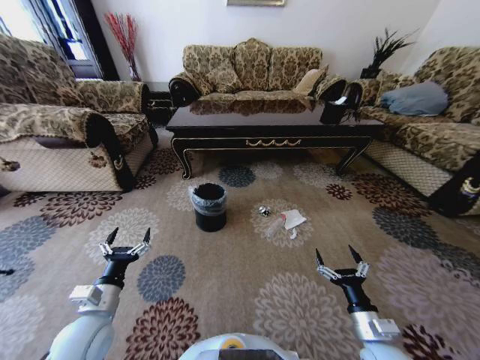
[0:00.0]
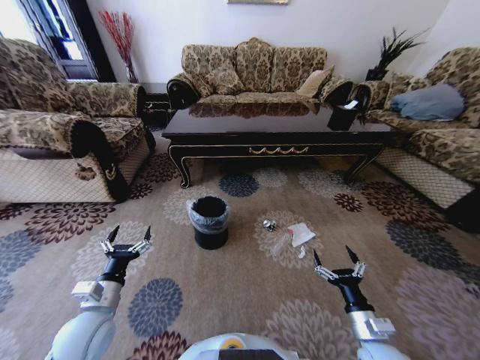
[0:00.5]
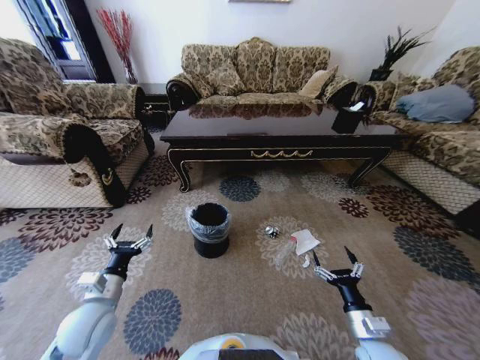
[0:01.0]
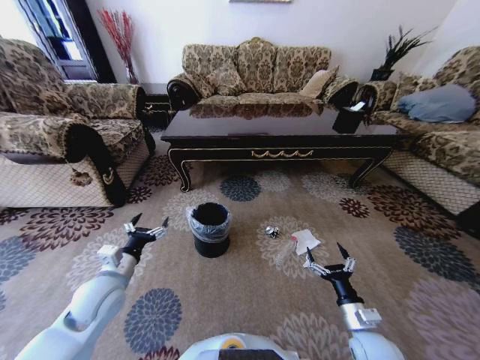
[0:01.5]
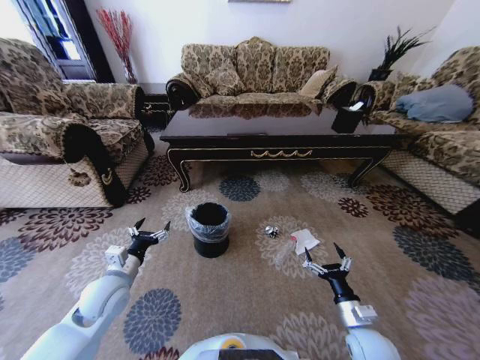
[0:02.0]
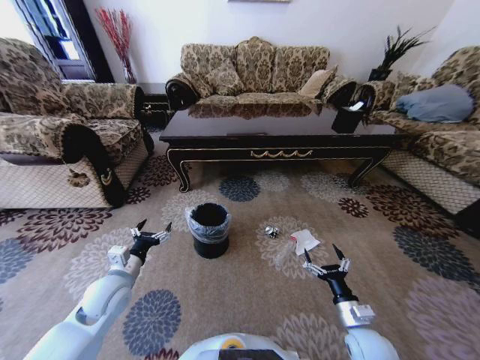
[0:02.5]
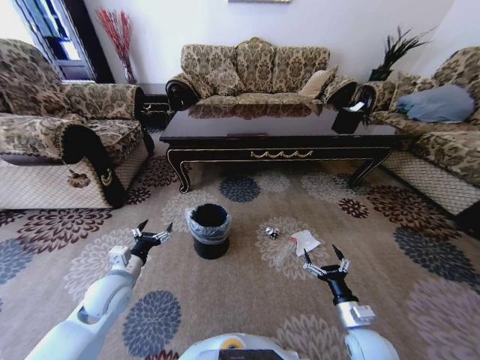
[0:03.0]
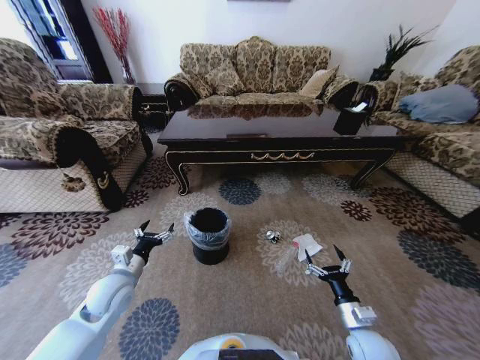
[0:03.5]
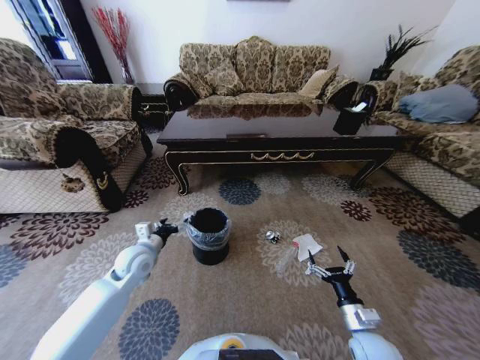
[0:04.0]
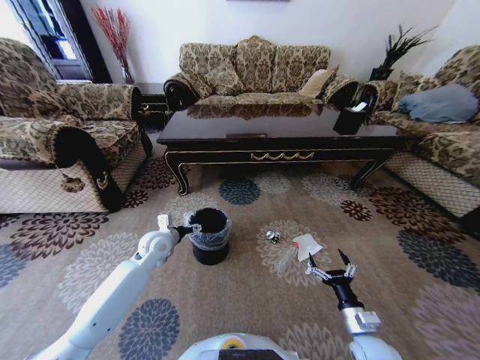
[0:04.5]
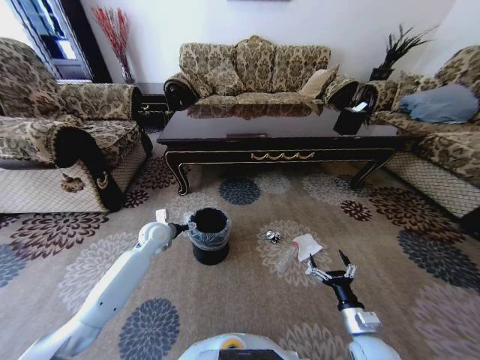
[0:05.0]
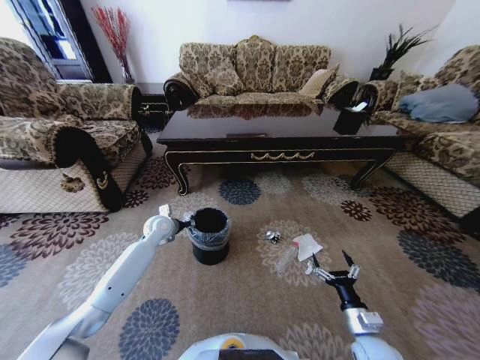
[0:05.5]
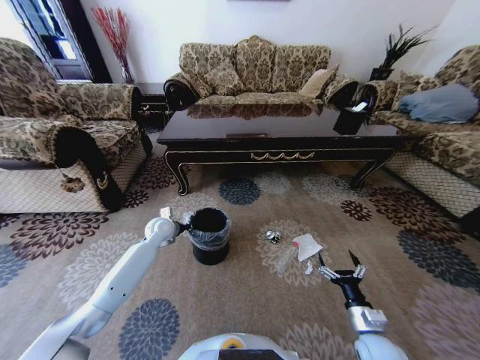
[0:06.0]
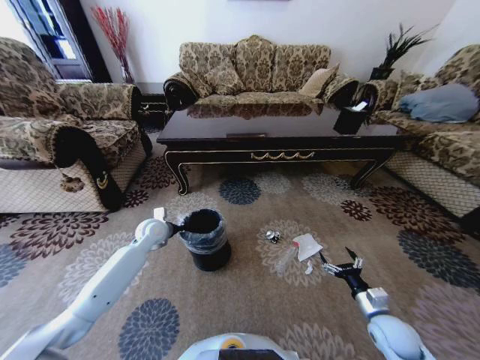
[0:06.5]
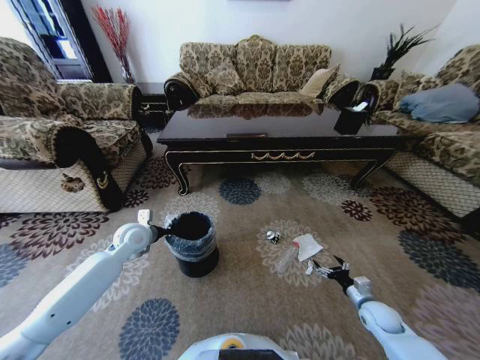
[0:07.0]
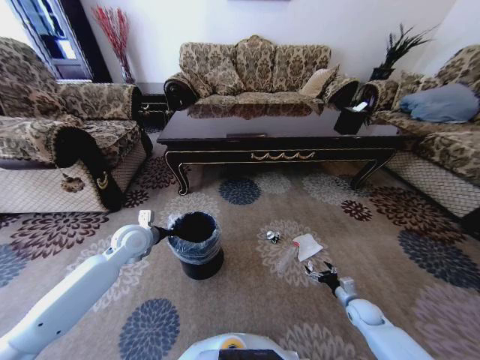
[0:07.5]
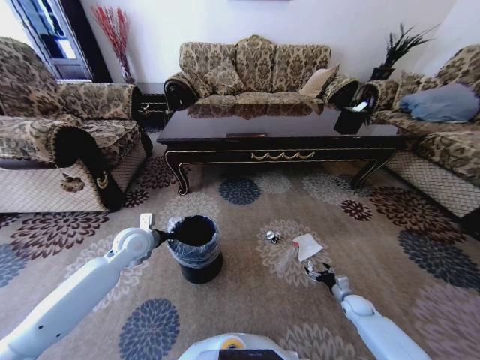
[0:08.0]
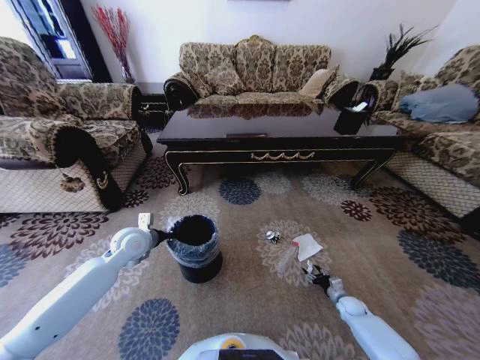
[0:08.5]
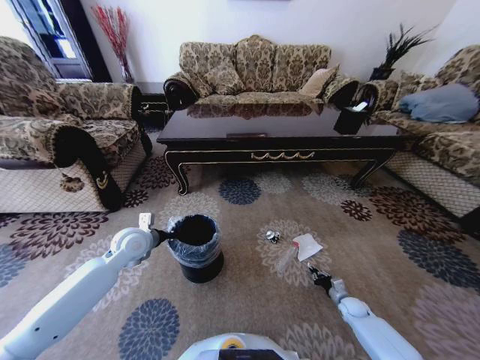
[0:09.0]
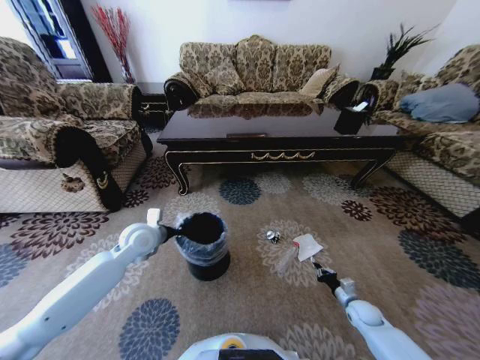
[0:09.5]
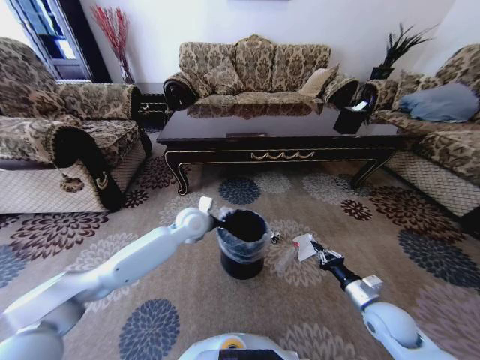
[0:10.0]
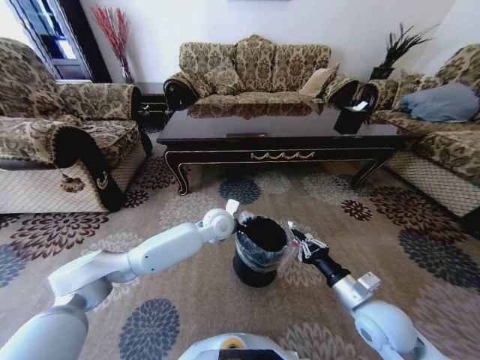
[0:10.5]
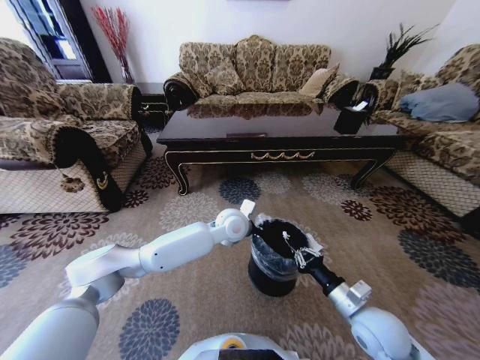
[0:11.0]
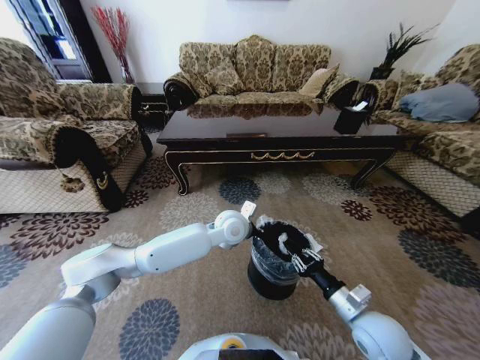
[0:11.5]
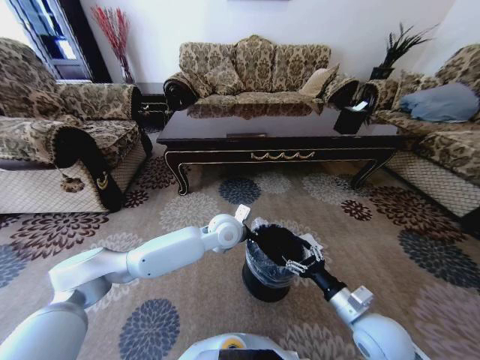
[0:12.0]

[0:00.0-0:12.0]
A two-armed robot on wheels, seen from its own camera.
Task of the whole recording: Move to the front of the table and pick up the trash from the floor, then place it into the trash bin.
0.0 to 2.0 s: The left gripper goes about 10 cm forward.
2.0 to 4.0 s: The left gripper goes about 10 cm forward.
4.0 to 6.0 s: The left gripper shifts about 15 cm forward, and closes its fingers.
6.0 to 8.0 s: The left gripper heads backward and upward, covering roughly 10 cm; the right gripper moves downward, forward and to the right, roughly 25 cm.
8.0 to 10.0 s: The right gripper shifts some 20 cm upward and to the left, and closes up; the left gripper shifts roughly 15 cm to the right.
10.0 to 12.0 s: The right gripper goes about 10 cm to the left and upward, and opens. The left gripper is displaced to the right by about 10 cm.

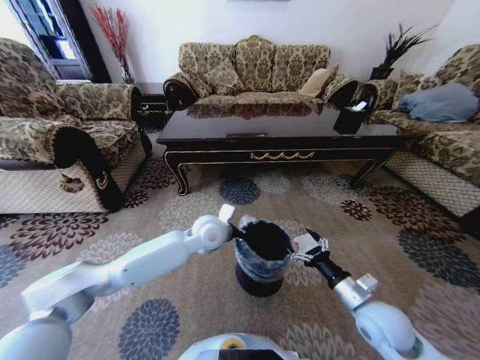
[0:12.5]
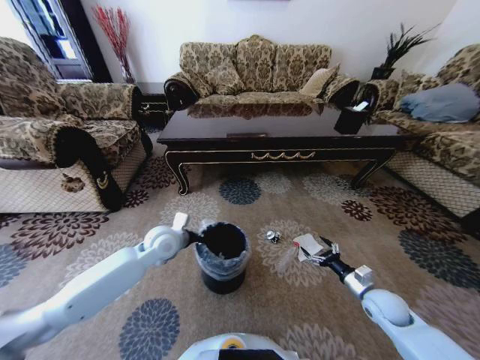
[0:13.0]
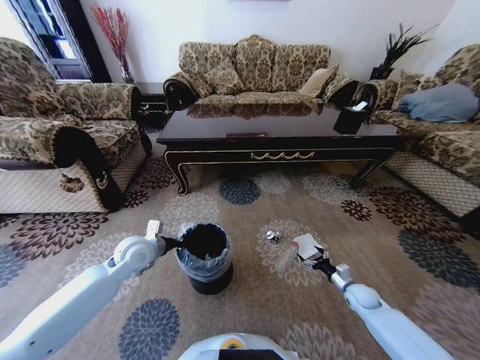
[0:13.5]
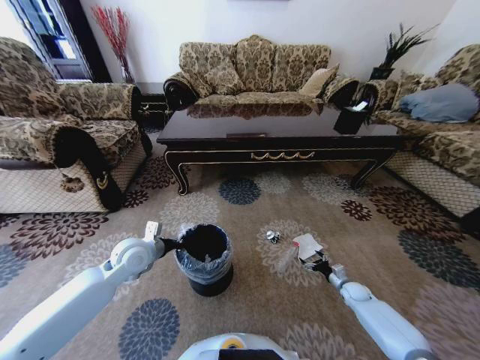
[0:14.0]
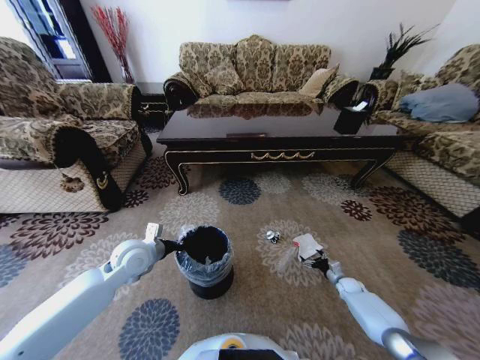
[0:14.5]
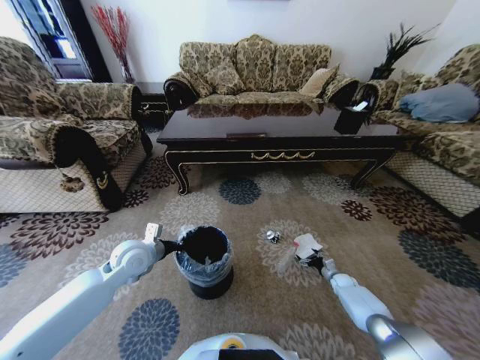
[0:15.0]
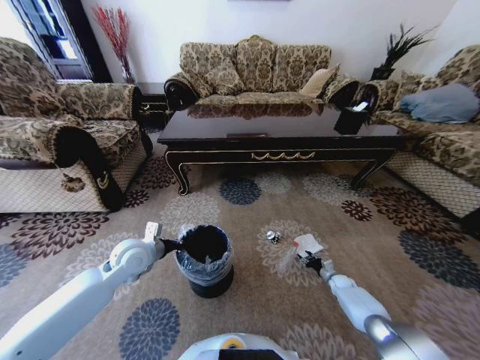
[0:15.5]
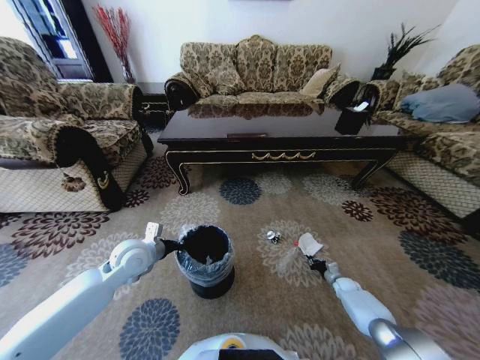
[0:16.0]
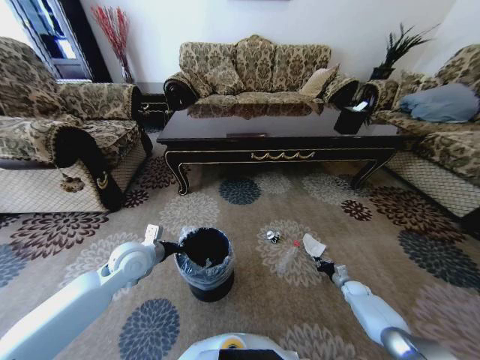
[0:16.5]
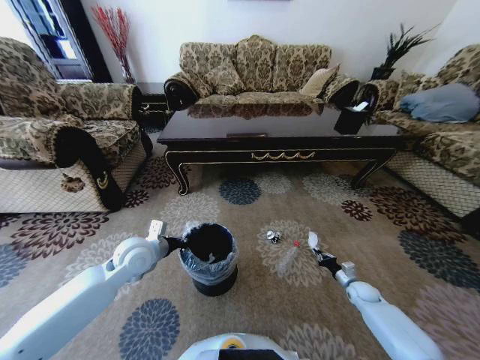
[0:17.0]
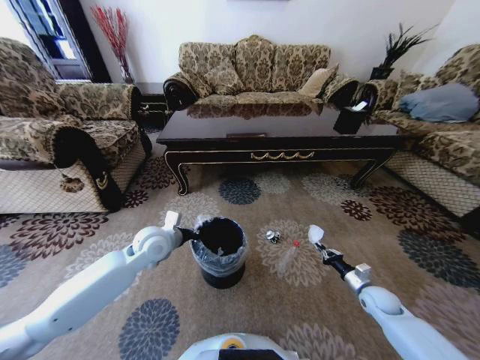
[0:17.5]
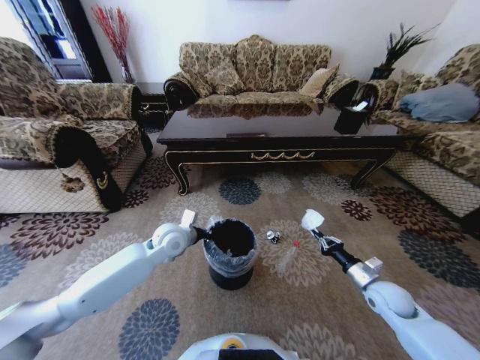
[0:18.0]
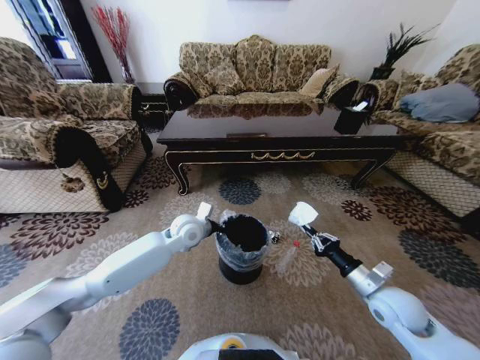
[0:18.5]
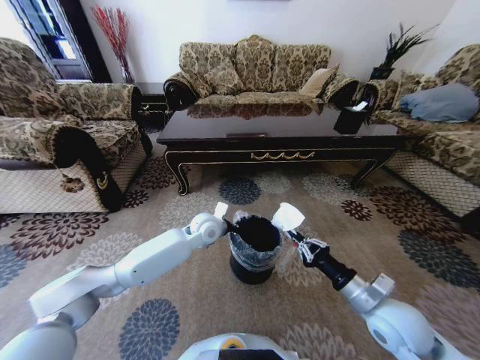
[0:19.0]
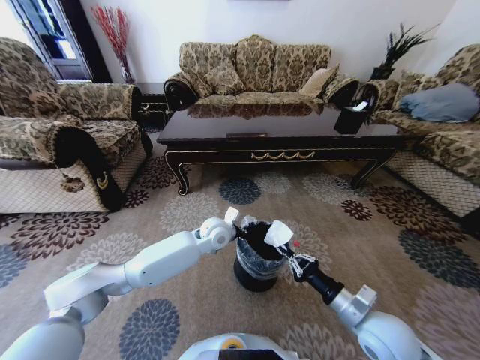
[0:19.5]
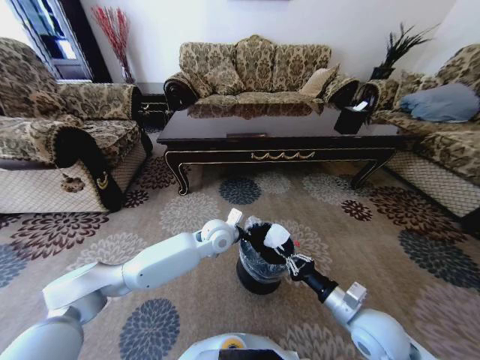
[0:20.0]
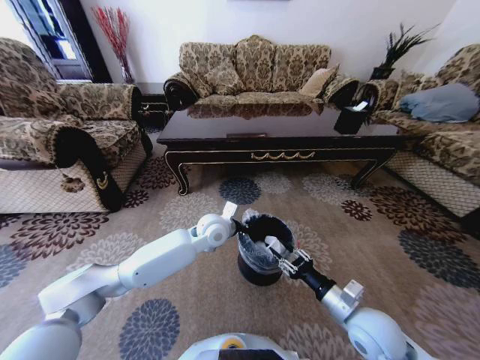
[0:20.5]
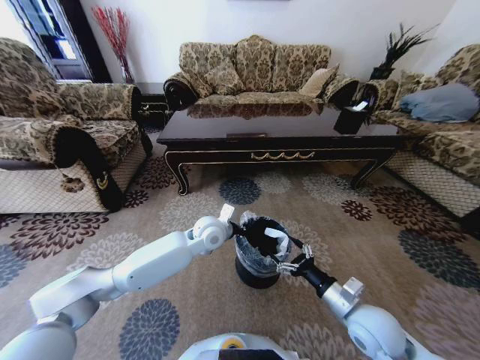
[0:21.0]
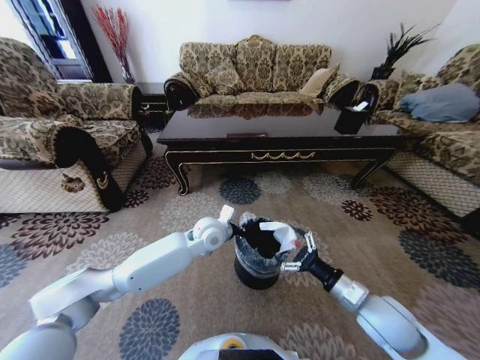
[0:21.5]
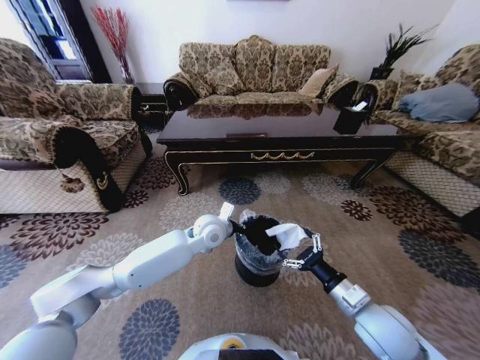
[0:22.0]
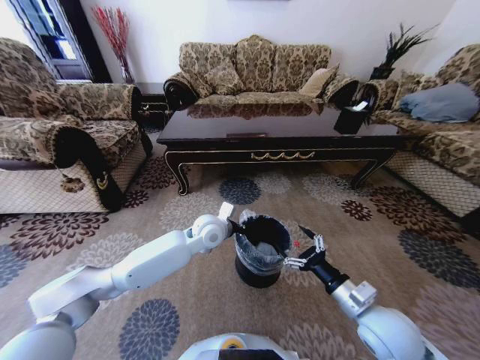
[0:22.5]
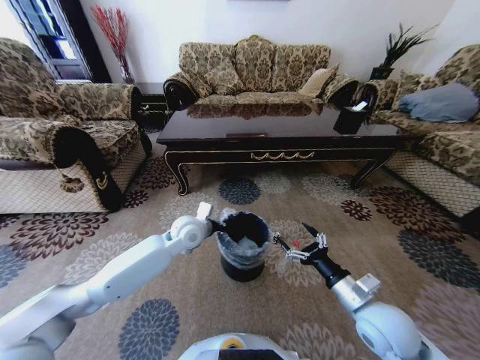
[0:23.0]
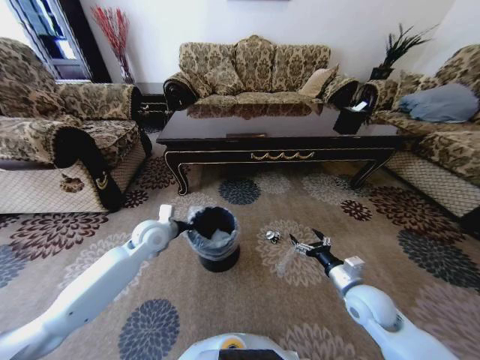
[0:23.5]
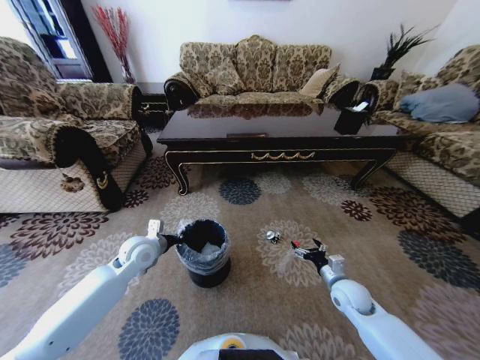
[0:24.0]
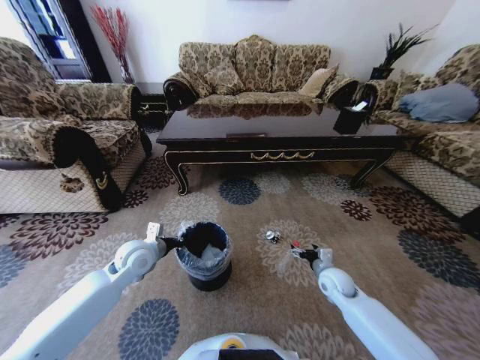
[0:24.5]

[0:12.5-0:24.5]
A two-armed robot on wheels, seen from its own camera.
Task of the whole recording: Move to the front of the table and pick up the trash from the floor, then place it into the trash bin.
12.5 to 14.5 s: The right gripper travels downward, to the right and forward by approximately 35 cm. Meanwhile the left gripper is displaced to the left by about 20 cm.
14.5 to 16.5 s: The right gripper closes its fingers.
16.5 to 18.5 s: The left gripper goes roughly 15 cm to the right and forward. Meanwhile the right gripper travels upward, to the left and backward by some 30 cm.
18.5 to 20.5 s: The left gripper goes some 10 cm to the right, while the right gripper travels to the left by roughly 10 cm, and opens its fingers.
20.5 to 22.5 s: The right gripper opens.
22.5 to 24.5 s: The left gripper moves to the left, roughly 20 cm; the right gripper goes approximately 20 cm forward and downward.

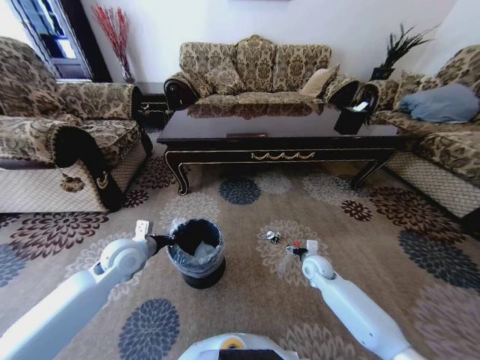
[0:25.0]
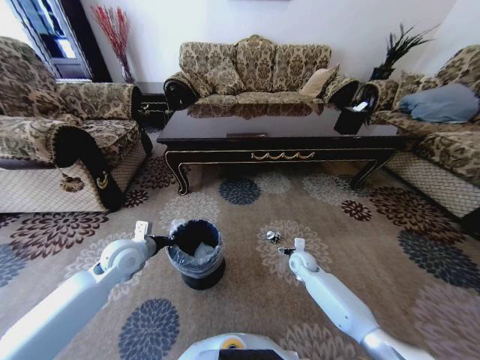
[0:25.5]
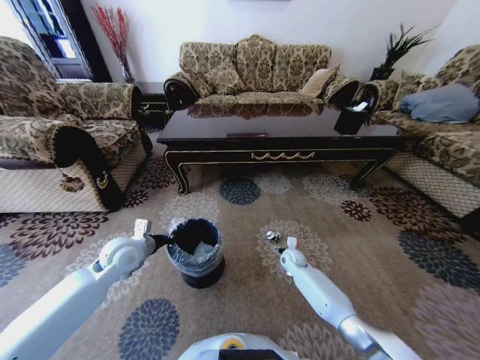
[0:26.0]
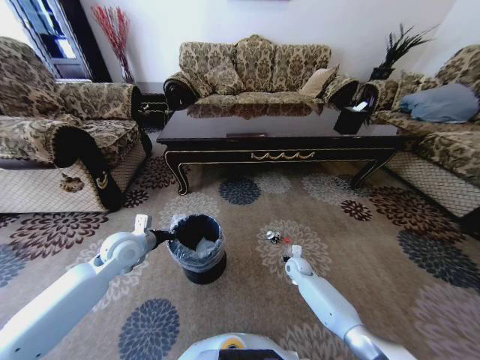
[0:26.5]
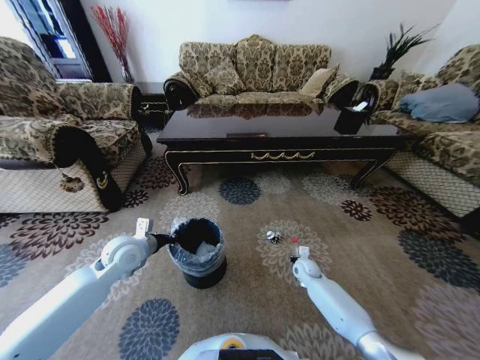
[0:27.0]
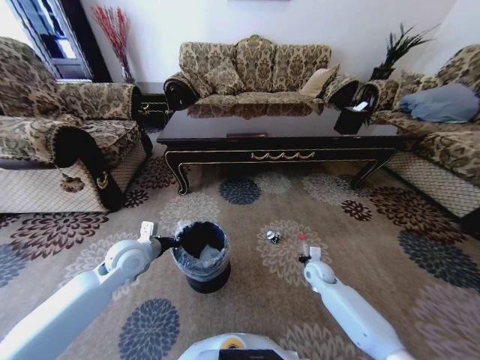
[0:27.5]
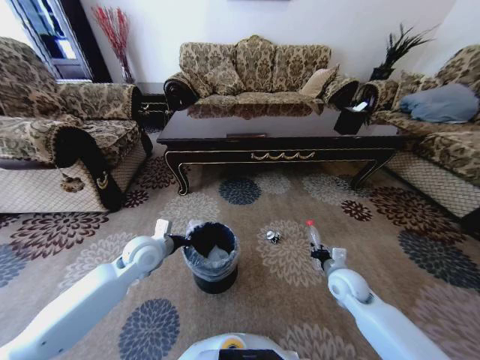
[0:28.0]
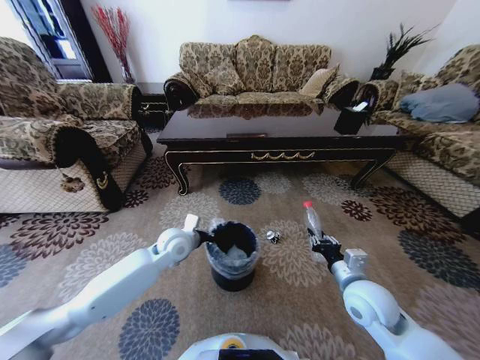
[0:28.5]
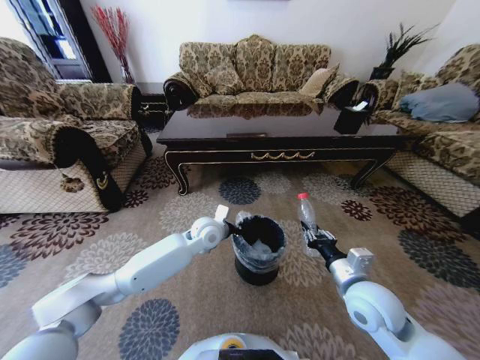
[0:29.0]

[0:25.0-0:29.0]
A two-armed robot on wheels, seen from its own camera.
Task of the whole recording: Move to the front of the table and pick up the trash from the floor, then place it into the trash bin.
25.0 to 27.0 s: The right gripper heads downward, covering about 5 cm, and closes its fingers.
27.0 to 29.0 s: The left gripper heads to the right, covering approximately 20 cm; the right gripper heads upward and backward, covering approximately 30 cm.
